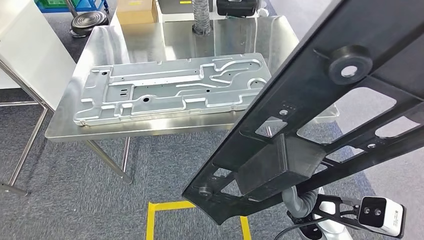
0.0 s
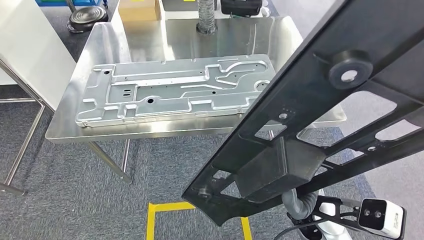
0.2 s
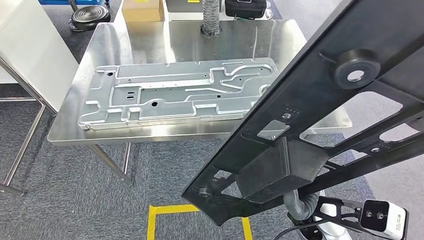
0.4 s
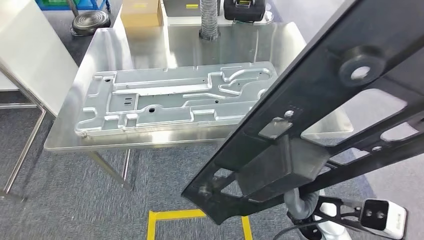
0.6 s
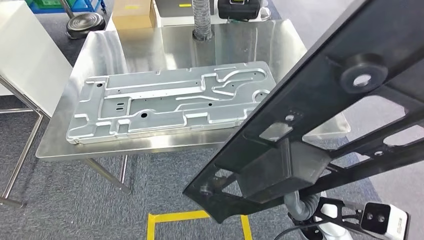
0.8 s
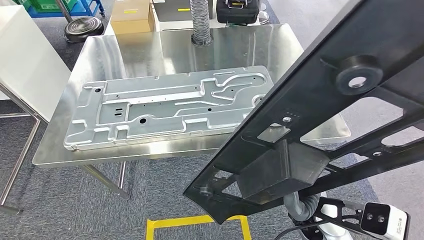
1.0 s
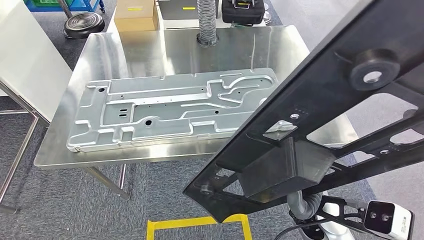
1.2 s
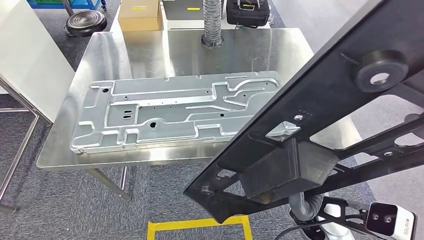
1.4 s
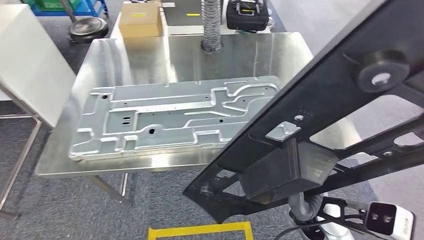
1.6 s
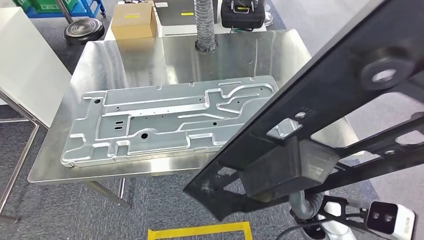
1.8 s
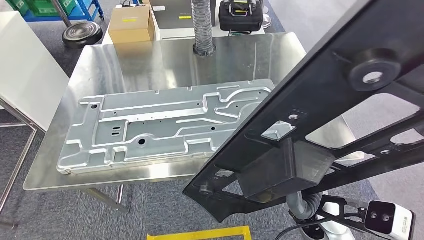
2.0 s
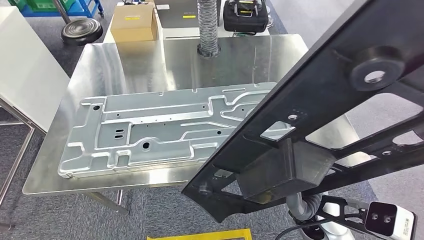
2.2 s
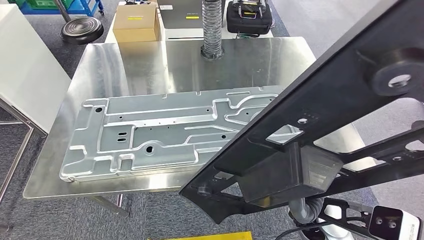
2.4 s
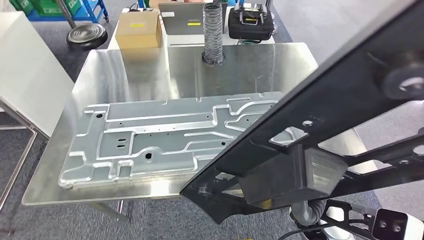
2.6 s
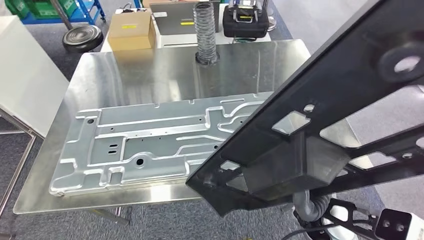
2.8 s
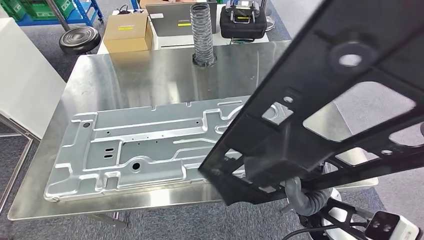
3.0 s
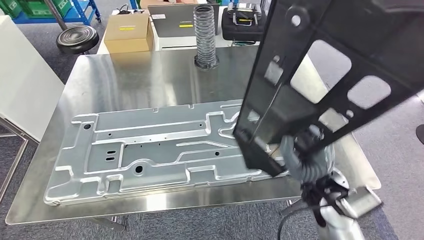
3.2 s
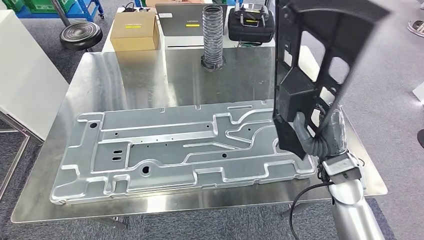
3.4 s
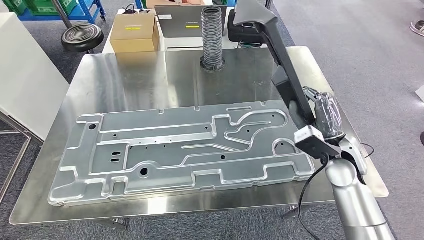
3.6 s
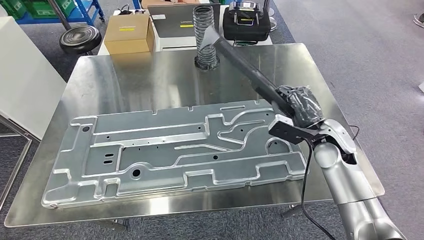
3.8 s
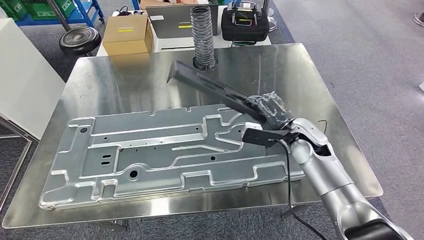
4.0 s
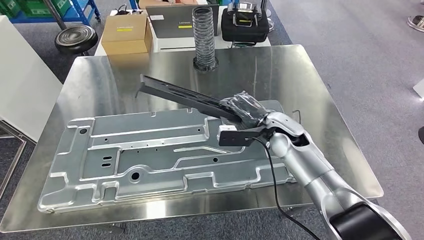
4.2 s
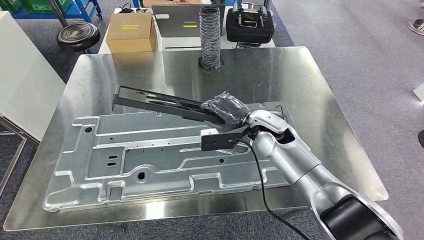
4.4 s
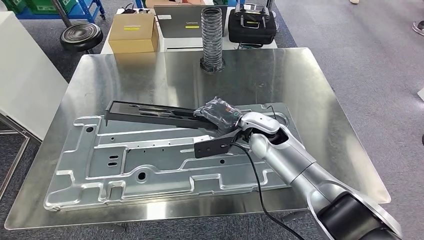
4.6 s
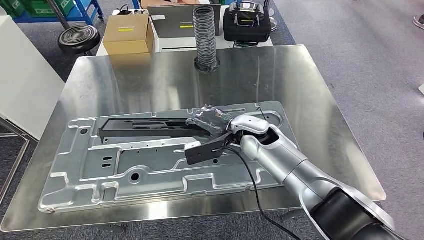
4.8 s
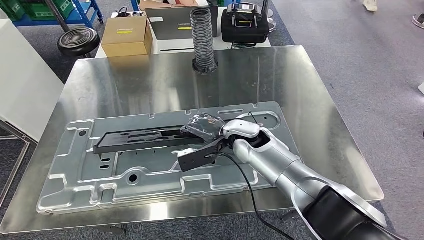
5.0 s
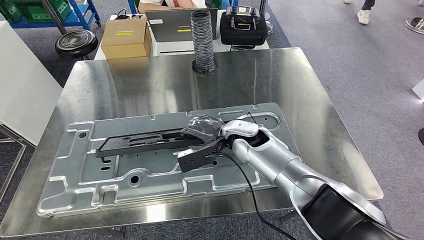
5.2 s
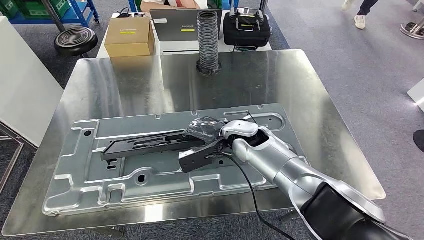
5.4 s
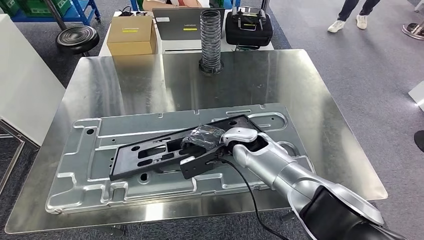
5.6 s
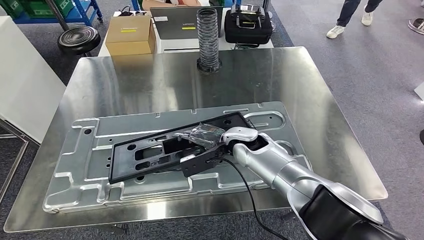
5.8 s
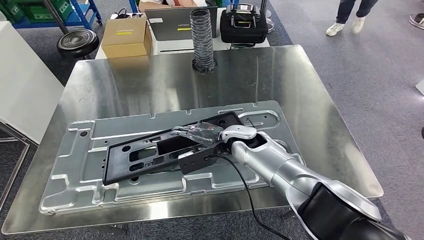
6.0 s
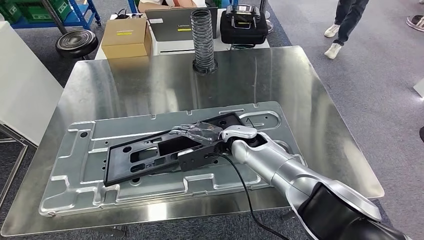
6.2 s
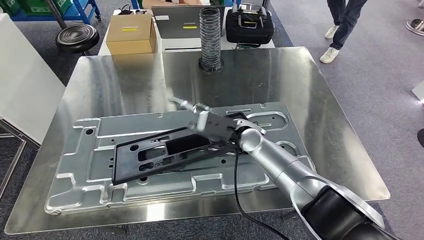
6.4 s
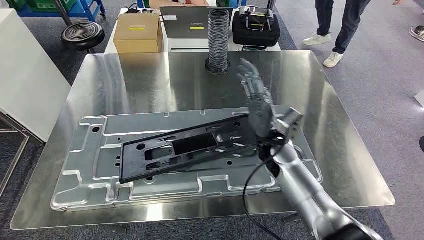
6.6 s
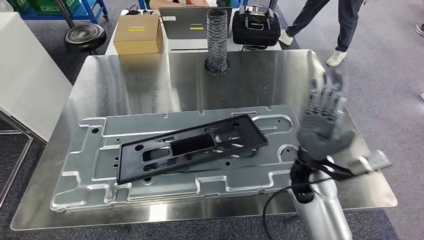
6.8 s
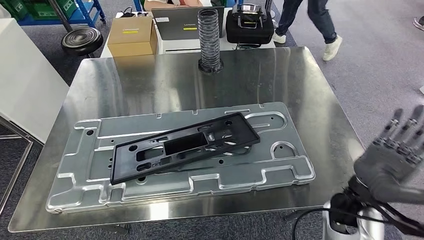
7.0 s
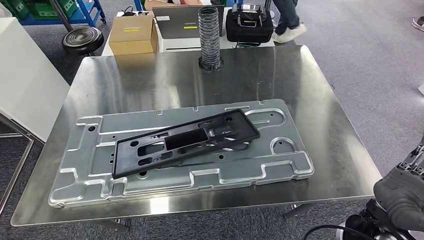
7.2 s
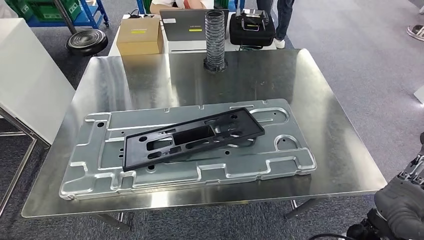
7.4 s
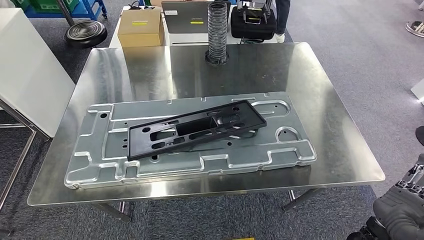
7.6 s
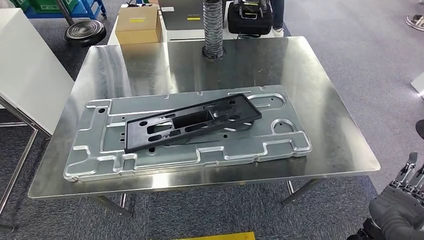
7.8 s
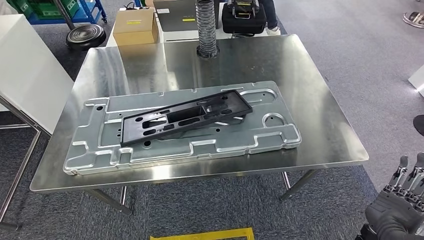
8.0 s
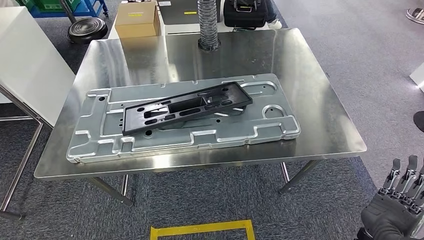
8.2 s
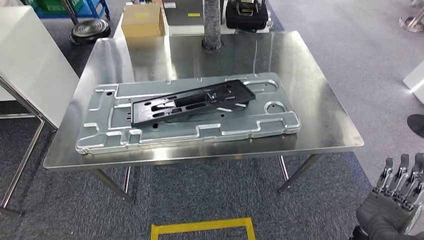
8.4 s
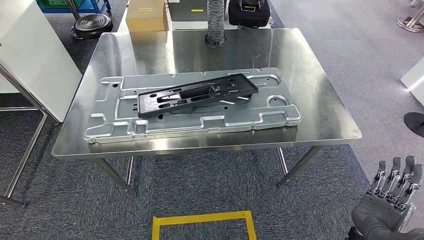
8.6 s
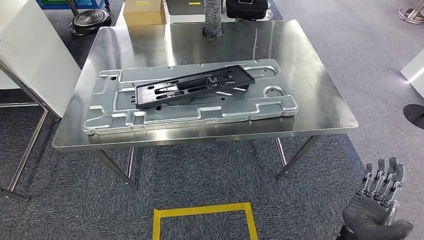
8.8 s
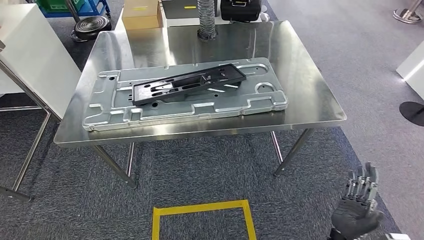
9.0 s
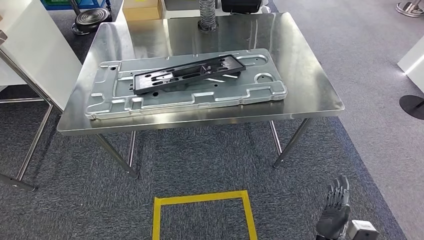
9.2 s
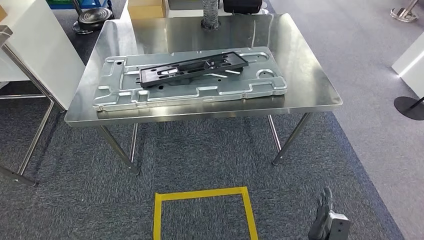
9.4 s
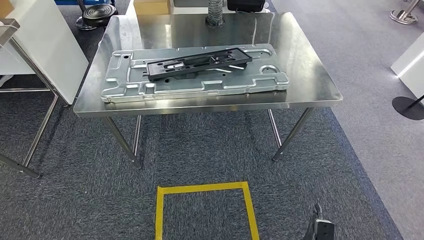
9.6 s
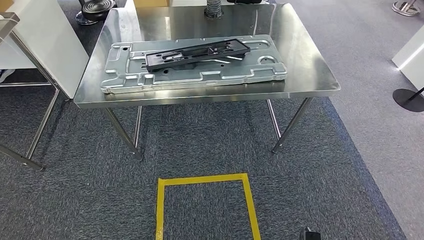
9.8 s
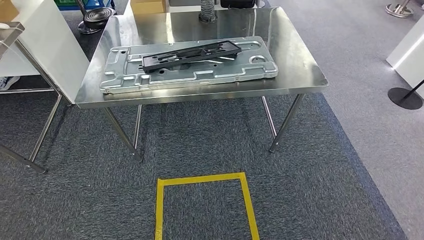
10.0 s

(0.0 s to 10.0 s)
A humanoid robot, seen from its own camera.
Step, 0.0 s - 6.0 s: Insert the small parts into the corresponding holes on the workbench.

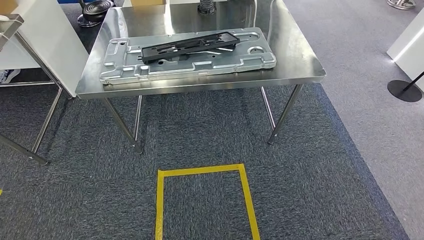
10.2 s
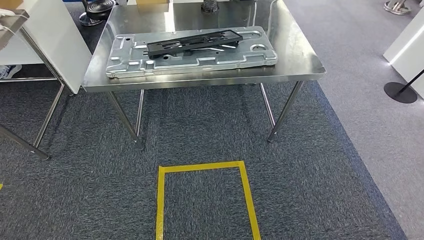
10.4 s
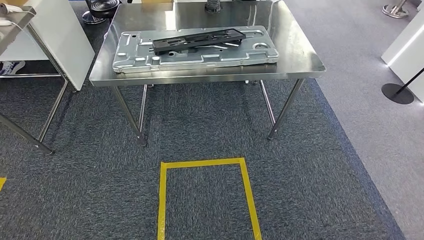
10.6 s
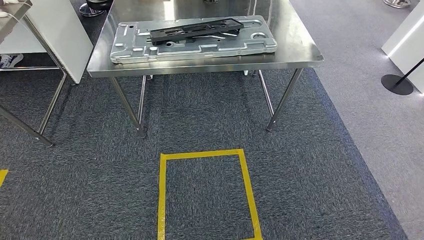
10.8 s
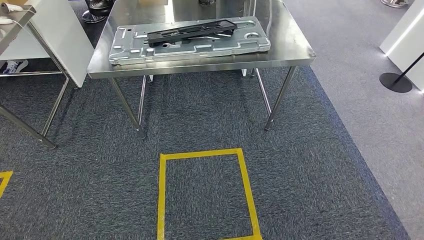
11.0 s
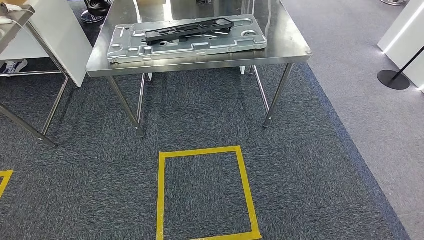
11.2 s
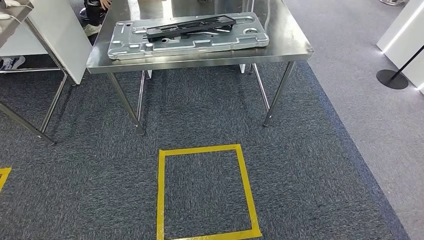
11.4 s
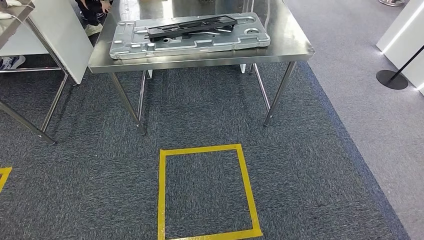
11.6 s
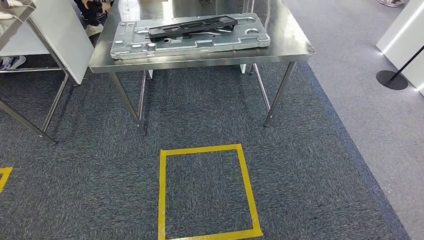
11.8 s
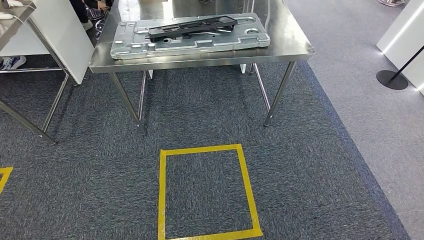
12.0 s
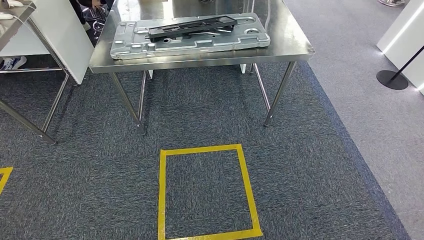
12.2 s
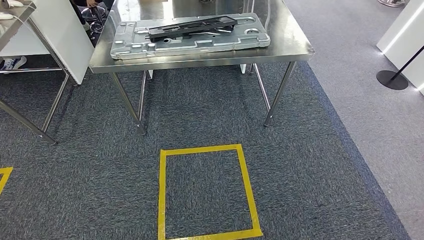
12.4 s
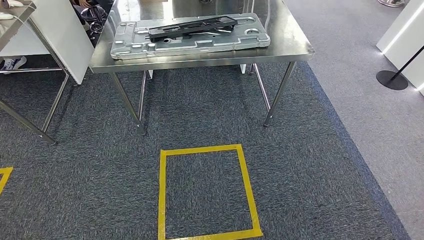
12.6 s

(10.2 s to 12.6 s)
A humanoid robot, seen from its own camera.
Step, 10.2 s - 12.6 s: Move to the initial position of the workbench.
11.4 s - 12.6 s: The hands make only small movements.

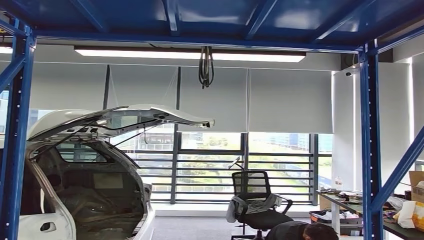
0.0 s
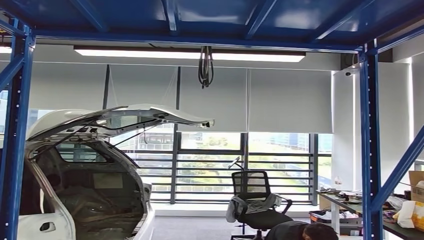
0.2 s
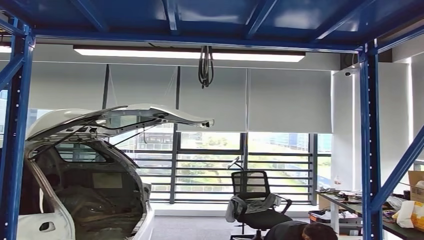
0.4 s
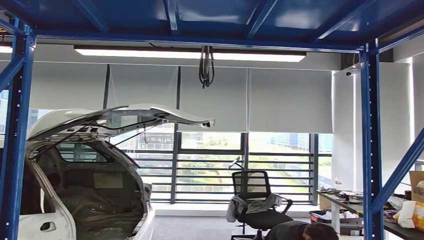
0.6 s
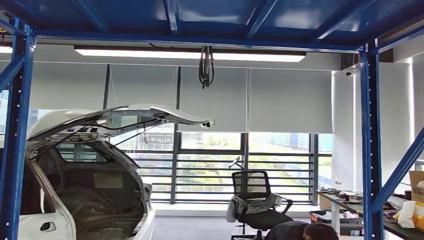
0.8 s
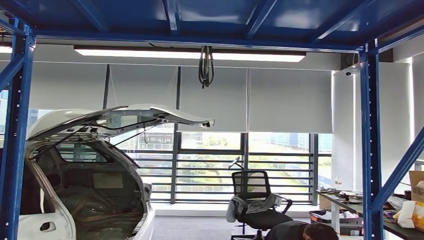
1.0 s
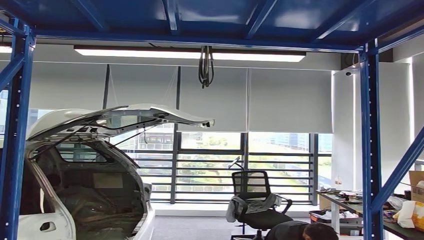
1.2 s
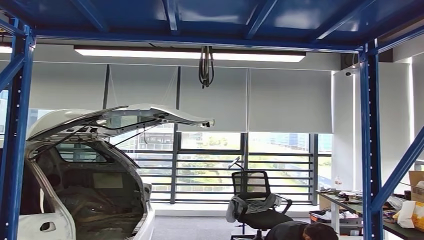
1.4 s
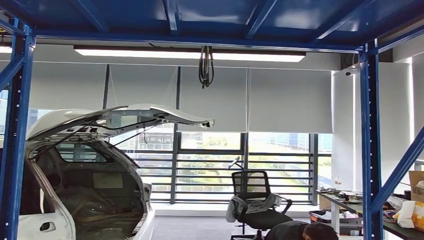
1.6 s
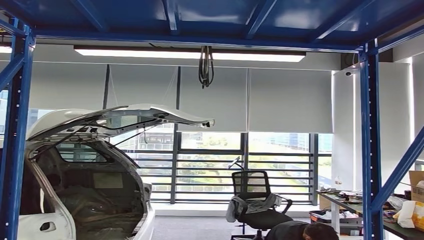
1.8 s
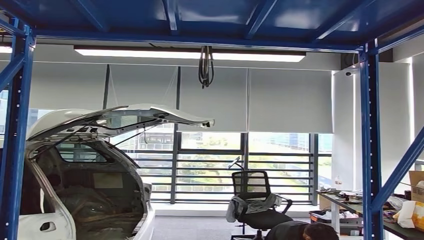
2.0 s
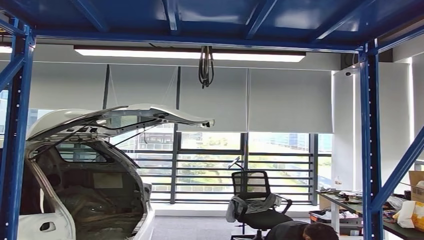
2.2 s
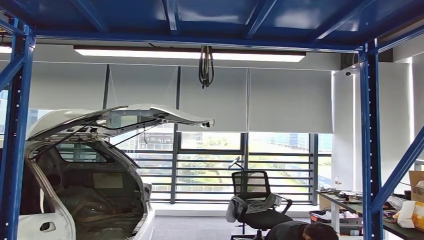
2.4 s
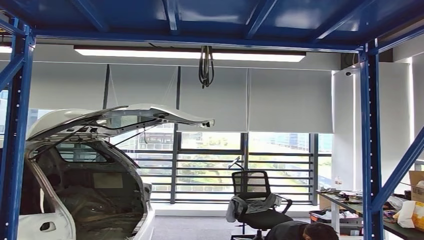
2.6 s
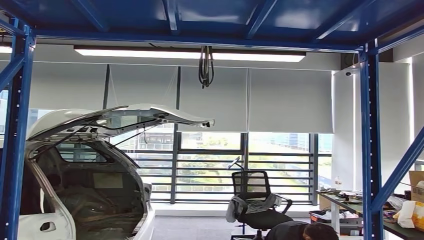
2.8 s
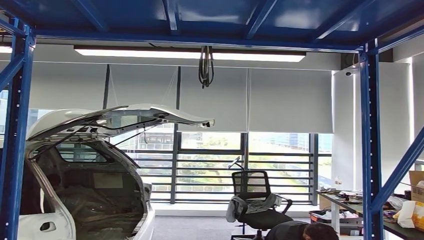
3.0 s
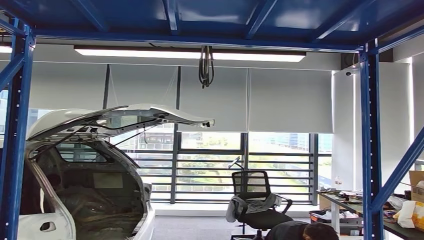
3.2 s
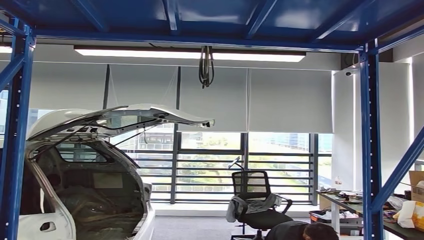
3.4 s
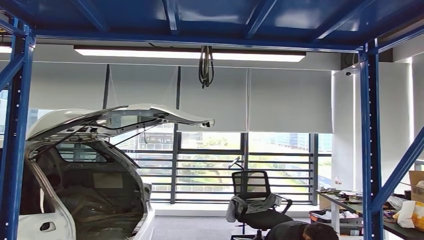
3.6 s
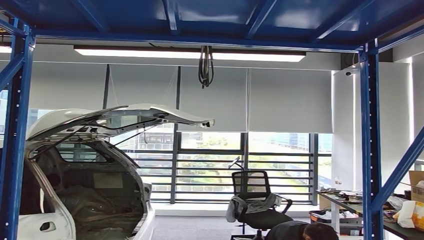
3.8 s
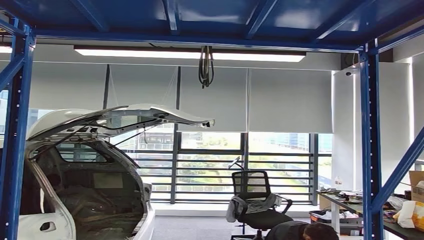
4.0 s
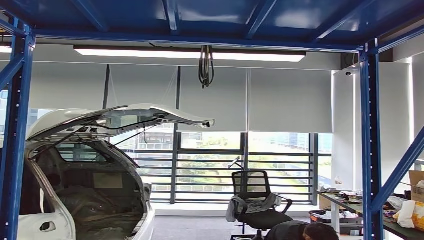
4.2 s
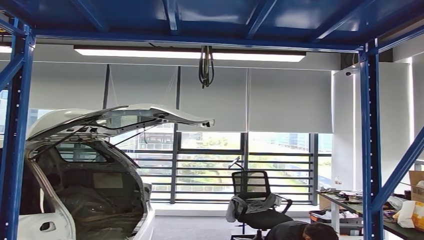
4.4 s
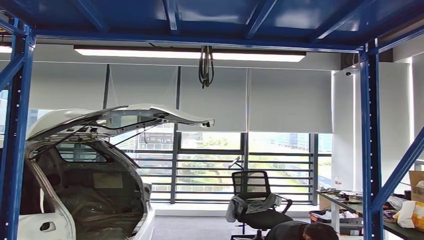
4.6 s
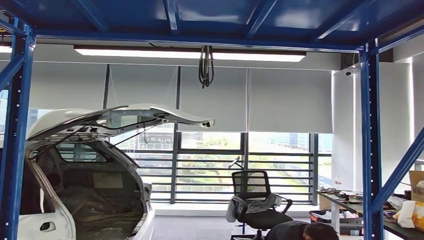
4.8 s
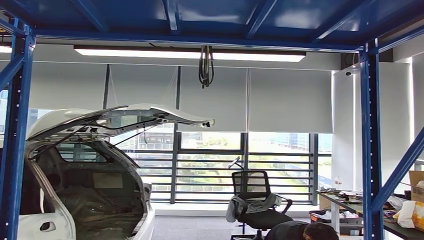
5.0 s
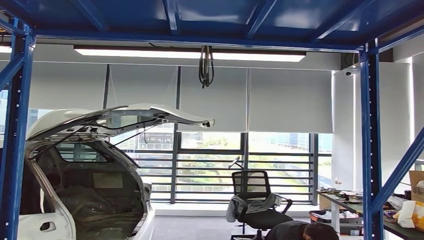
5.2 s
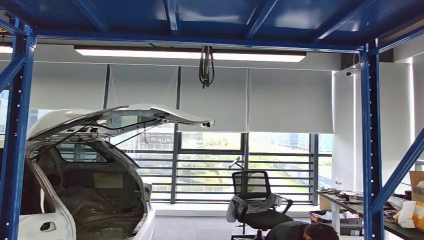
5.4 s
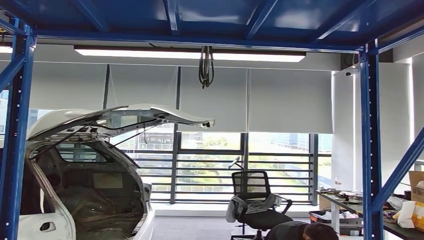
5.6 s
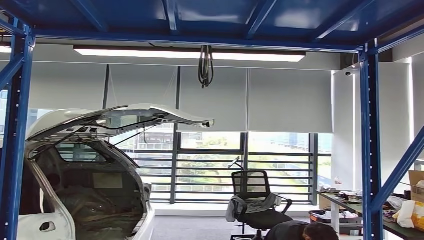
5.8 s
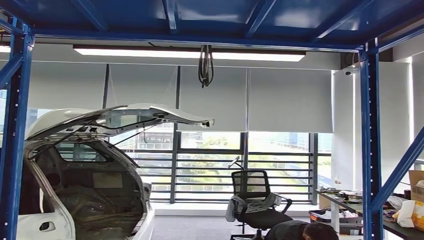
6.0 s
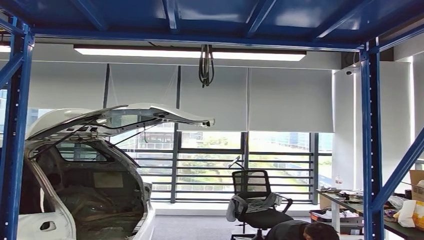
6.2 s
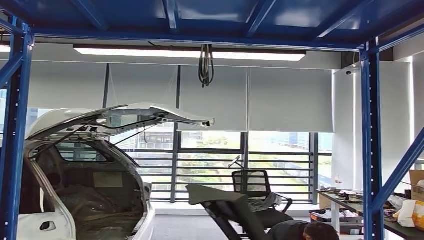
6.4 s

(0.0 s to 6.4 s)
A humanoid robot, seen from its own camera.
Step, 0.0 s - 6.2 s: Take small components from the rack.
4.8 s - 6.4 s: The right hand moves upward, backward and to the right, approximately 15 cm.
